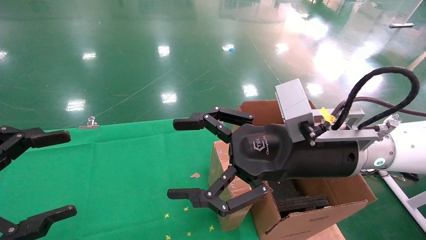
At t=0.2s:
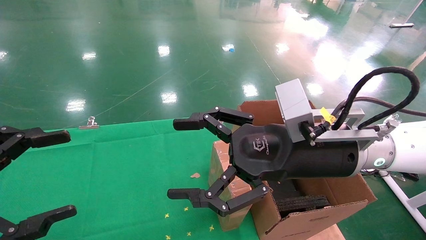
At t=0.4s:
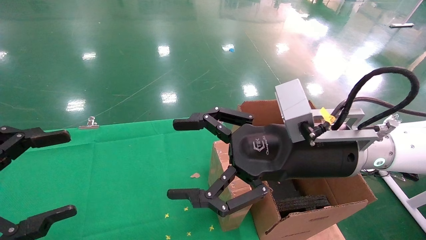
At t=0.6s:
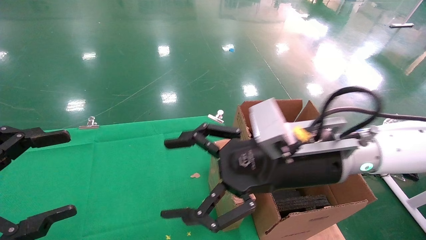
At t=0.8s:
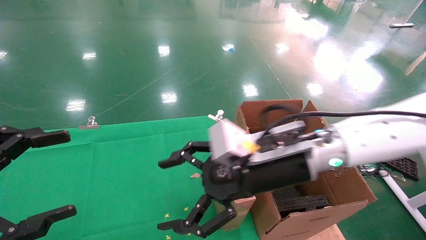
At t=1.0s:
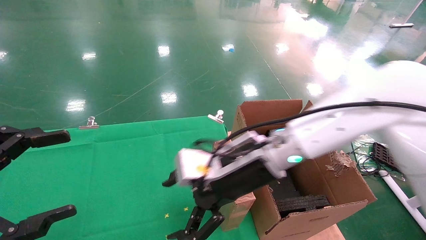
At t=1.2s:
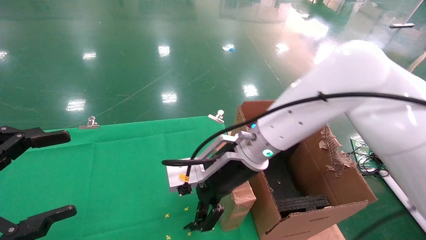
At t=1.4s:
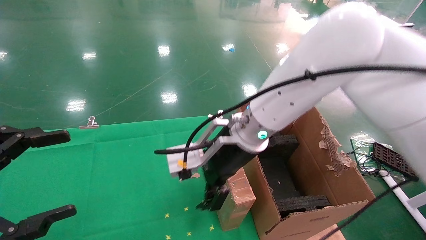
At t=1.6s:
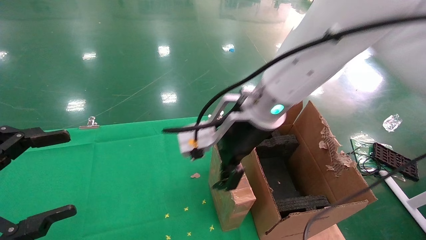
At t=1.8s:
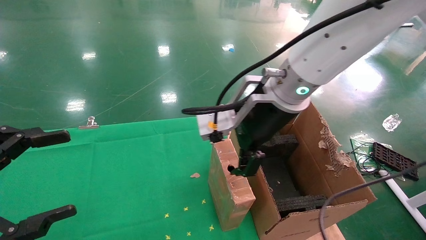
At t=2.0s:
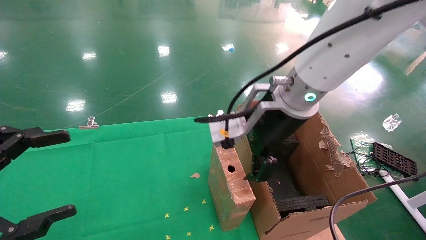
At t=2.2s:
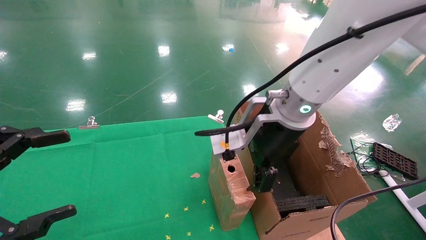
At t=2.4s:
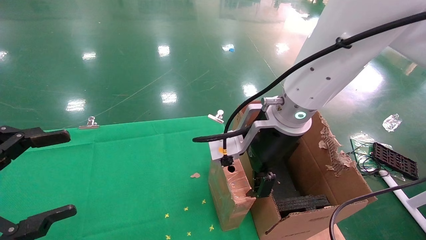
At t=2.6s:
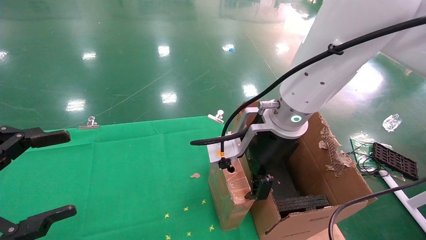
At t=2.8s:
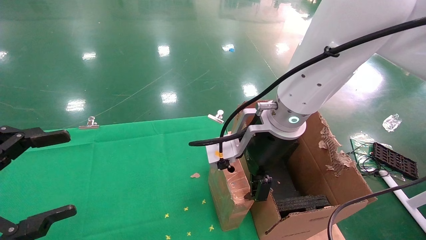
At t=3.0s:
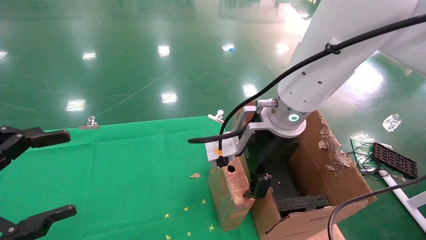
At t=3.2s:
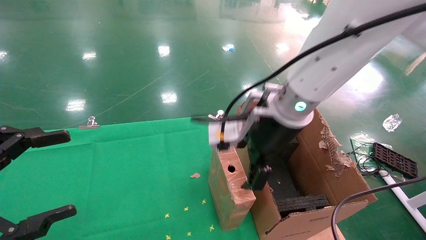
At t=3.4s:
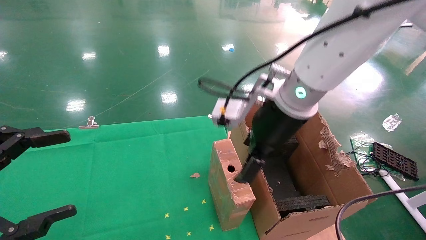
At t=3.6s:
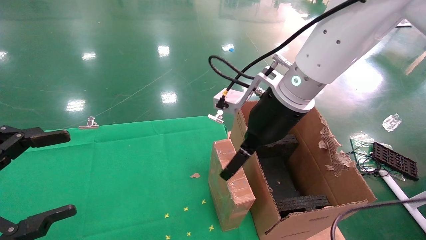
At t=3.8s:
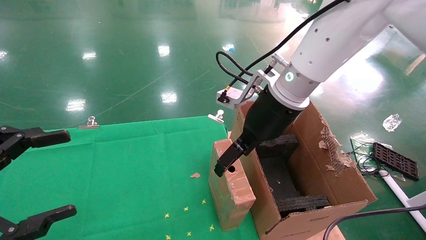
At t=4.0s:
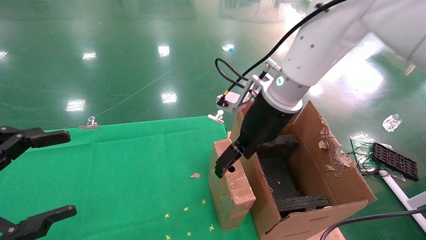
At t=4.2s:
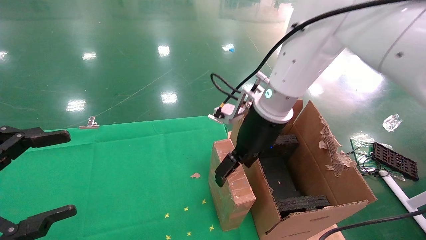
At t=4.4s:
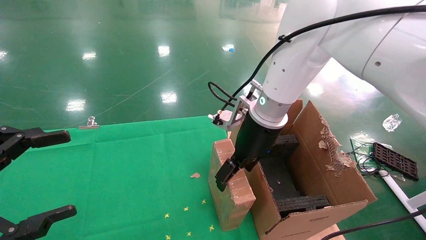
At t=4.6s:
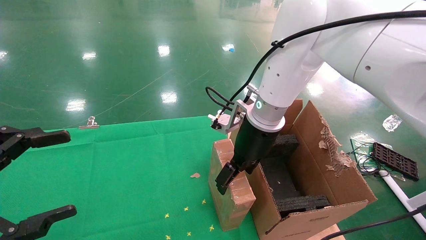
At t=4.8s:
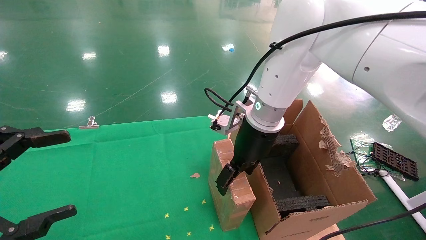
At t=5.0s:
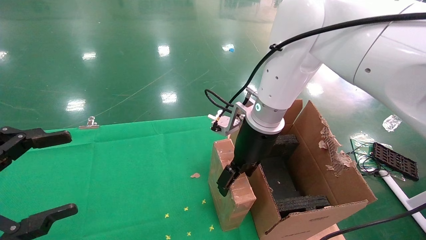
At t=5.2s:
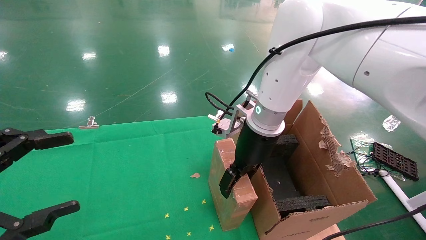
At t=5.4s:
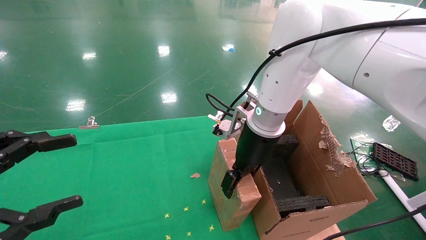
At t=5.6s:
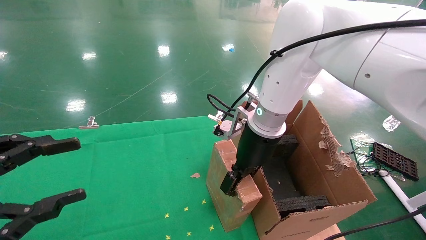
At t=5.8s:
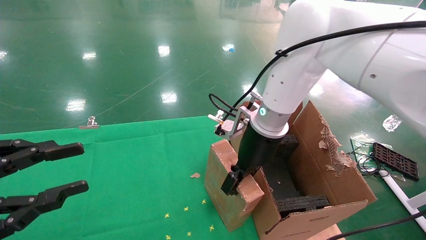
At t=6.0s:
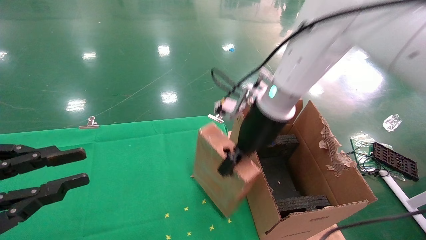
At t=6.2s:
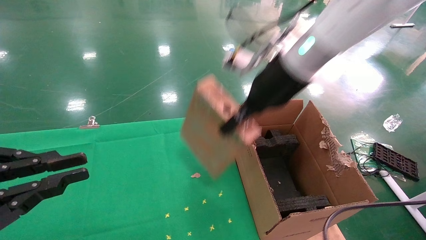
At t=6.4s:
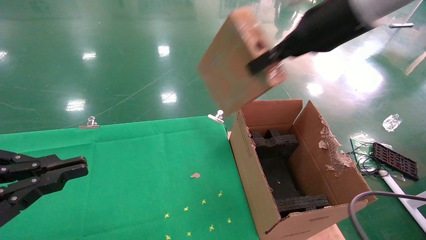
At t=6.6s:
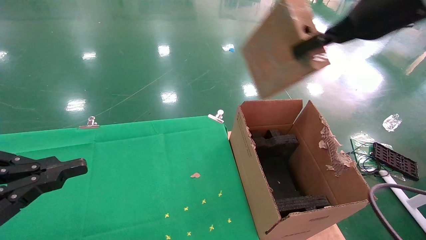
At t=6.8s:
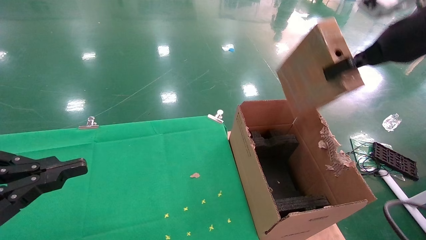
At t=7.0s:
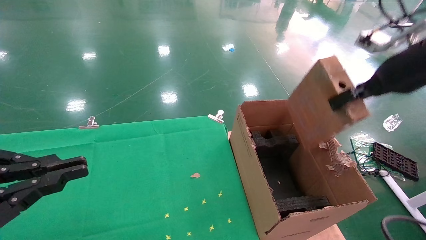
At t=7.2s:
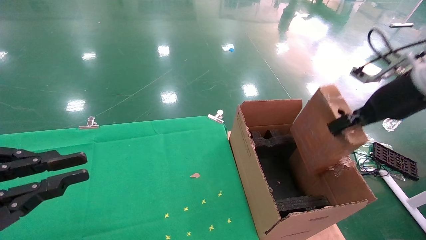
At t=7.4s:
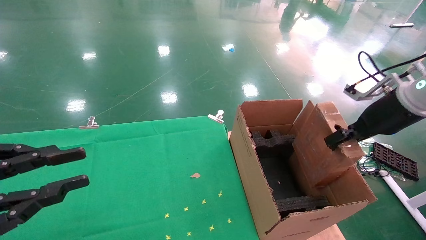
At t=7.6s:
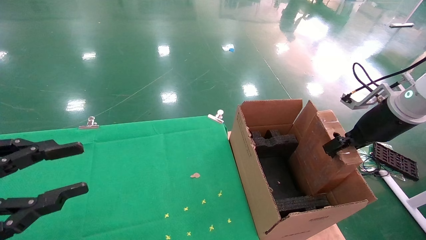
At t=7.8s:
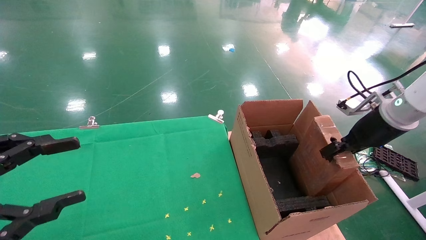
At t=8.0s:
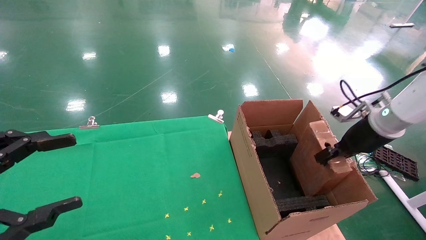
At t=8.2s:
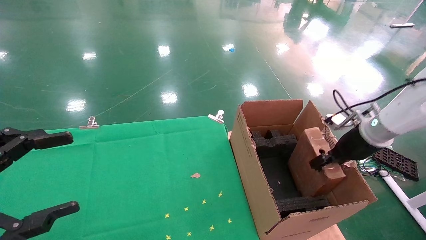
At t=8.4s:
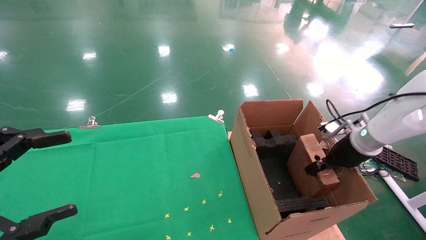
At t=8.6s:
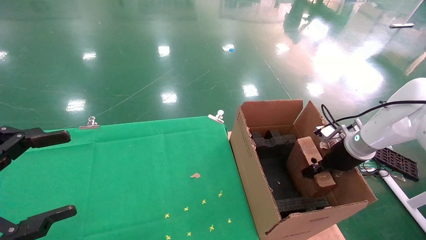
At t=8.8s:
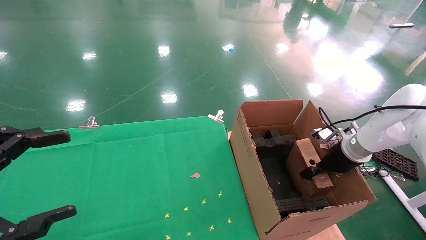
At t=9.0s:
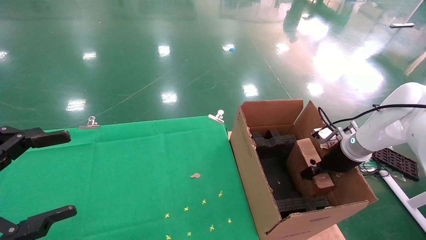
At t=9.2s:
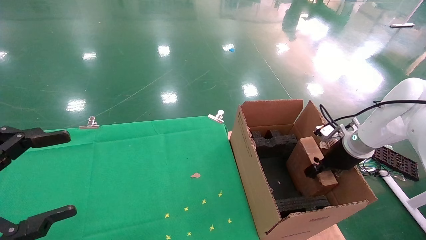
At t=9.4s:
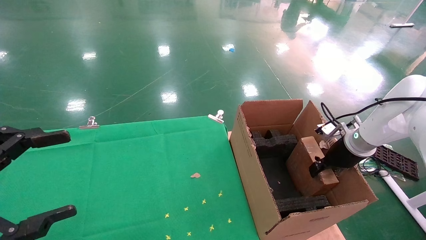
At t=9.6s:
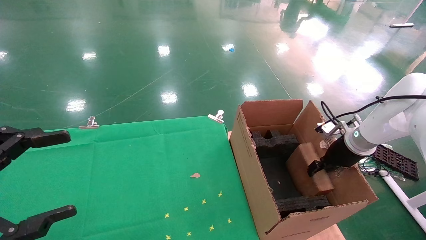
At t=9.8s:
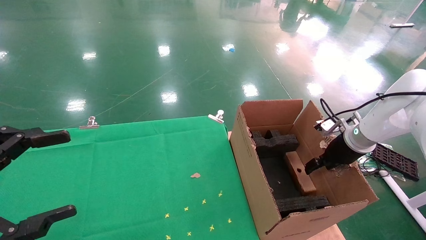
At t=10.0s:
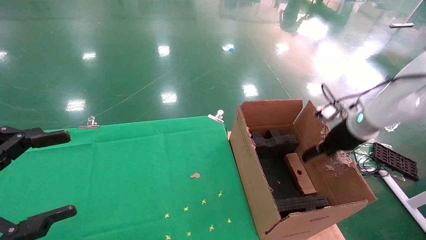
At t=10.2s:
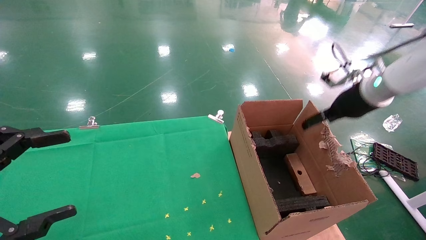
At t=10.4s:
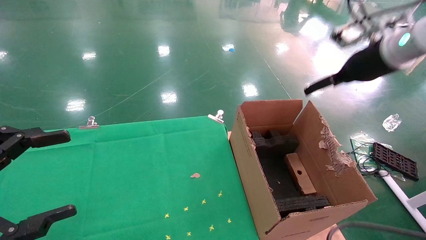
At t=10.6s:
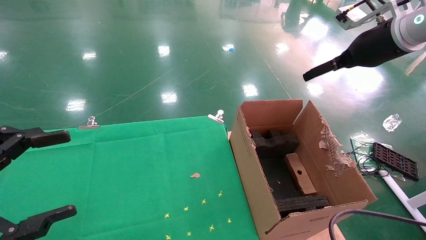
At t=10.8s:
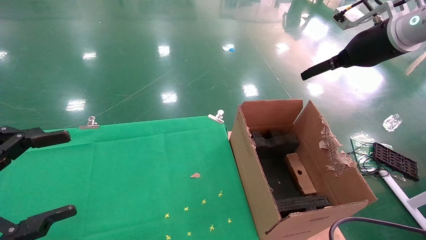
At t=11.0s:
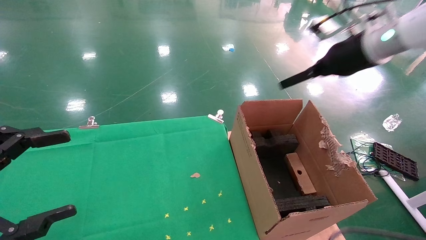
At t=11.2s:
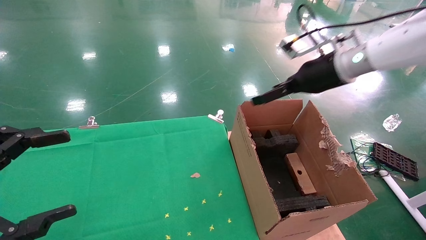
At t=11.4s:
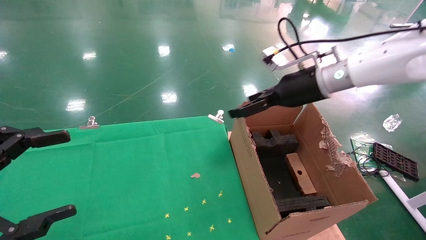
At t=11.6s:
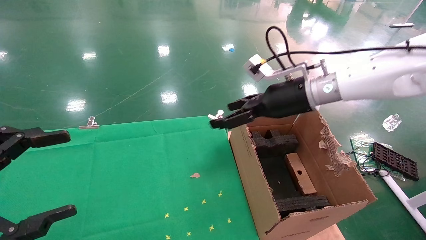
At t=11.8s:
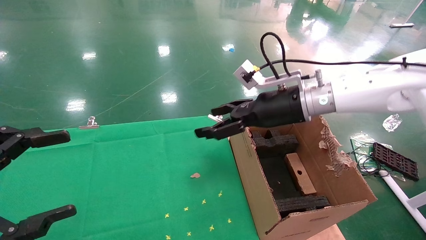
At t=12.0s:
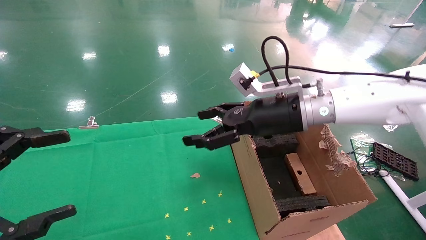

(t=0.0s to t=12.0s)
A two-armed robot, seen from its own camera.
Task of the whole recording: using a robotic arm to pick up a cardboard box and palace it the carton.
Step, t=0.8s - t=5.6s: Pick up the mouse and the power cord paper box.
Step, t=5.8s - t=9.8s: Place the mouse and the power cord paper box into the container.
t=0.0s - t=1.6s: The right gripper shifts approximately 10 cm to the left and forward.
t=1.6s - t=3.0s: The grippers stay close to where they were, moving slightly.
t=3.0s - t=4.4s: The right gripper heads forward, covering approximately 5 cm.
t=4.4s - t=6.0s: The left gripper closes its fingers. Meanwhile the right gripper closes up.
t=6.0s - t=7.6s: The right gripper goes approximately 25 cm to the right.
t=7.6s - t=9.0s: The left gripper opens up. Meanwhile the right gripper goes approximately 15 cm downward and forward.
t=9.0s - t=10.4s: The right gripper shifts some 20 cm upward, and opens its fingers.
t=10.4s - t=12.0s: The right gripper shifts some 20 cm to the left and downward.

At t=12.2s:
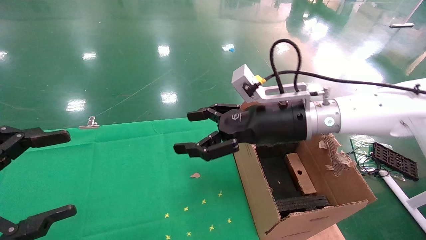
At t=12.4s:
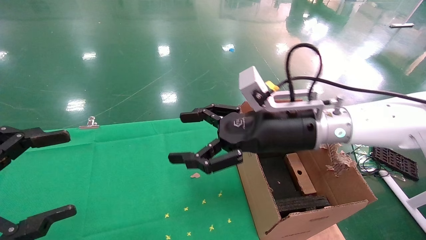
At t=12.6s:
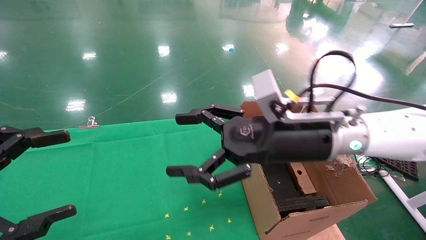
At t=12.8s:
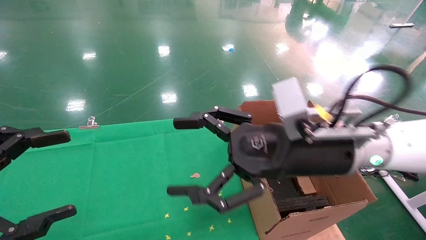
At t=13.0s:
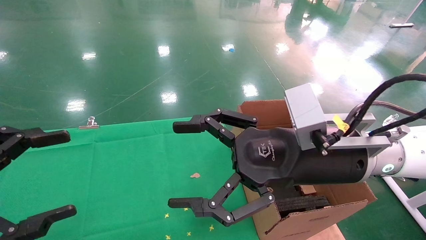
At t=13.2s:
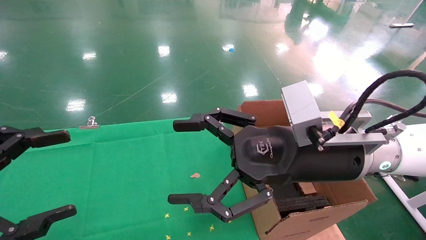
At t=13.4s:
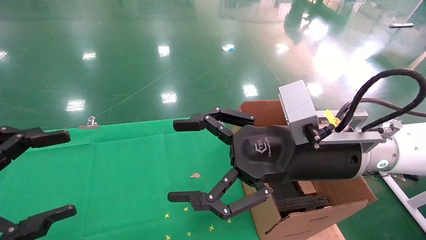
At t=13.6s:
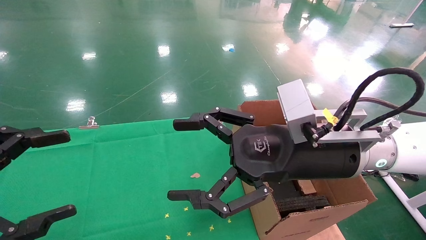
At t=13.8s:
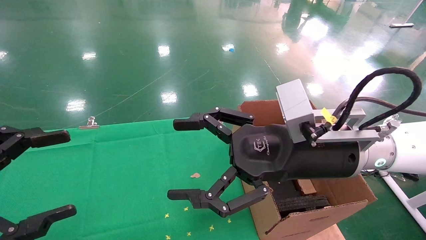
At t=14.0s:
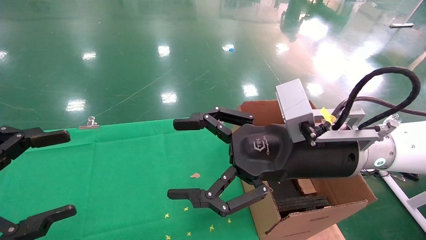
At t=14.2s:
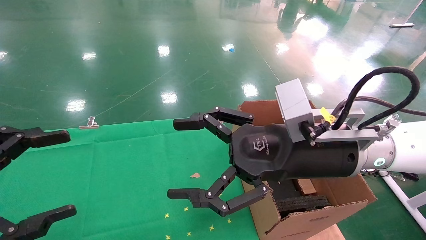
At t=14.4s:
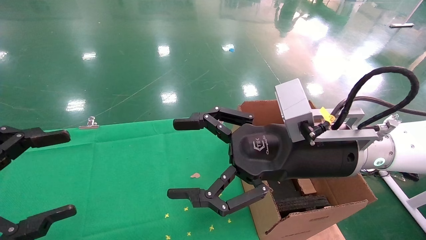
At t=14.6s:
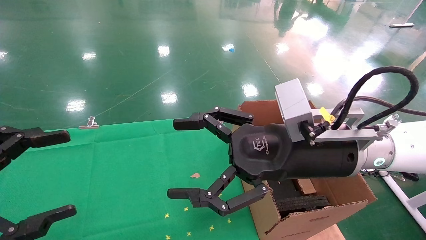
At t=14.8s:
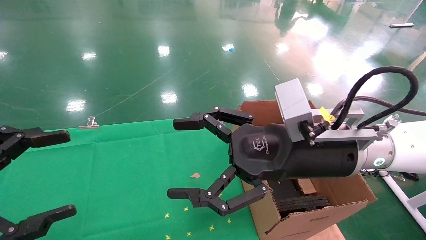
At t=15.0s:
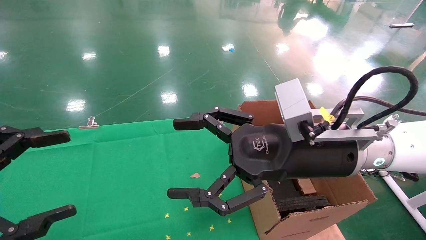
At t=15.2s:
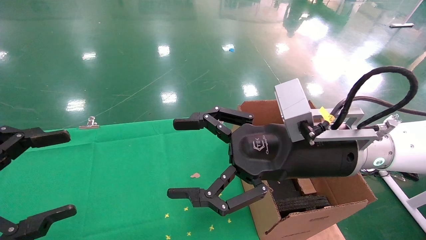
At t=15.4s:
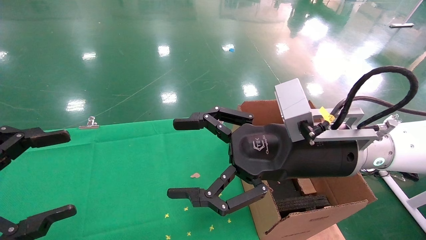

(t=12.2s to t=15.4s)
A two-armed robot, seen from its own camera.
Task of the whole recording: using a robotic arm to pick up a cardboard box and palace it the carton.
t=12.2s - t=13.8s: The right gripper goes approximately 10 cm backward.
t=13.8s - t=15.4s: Both grippers stay put.
